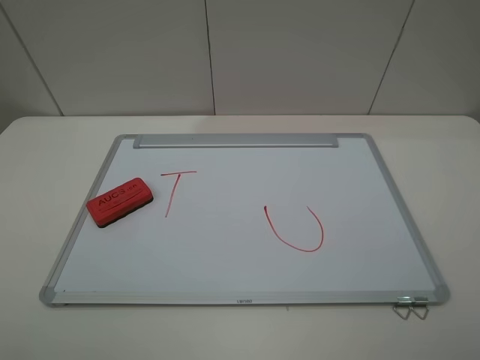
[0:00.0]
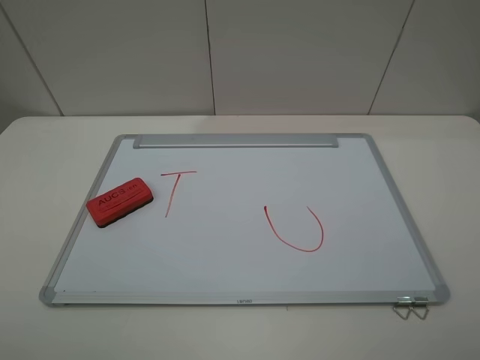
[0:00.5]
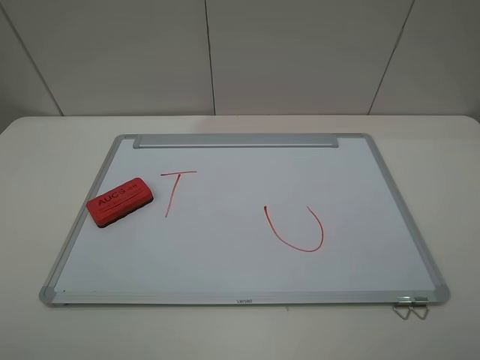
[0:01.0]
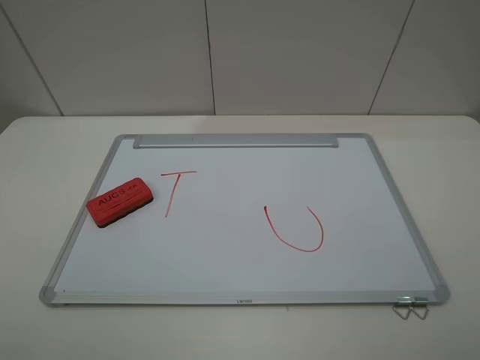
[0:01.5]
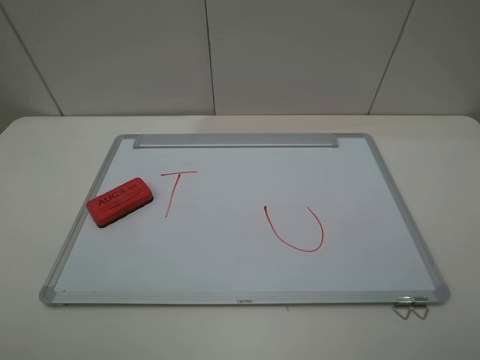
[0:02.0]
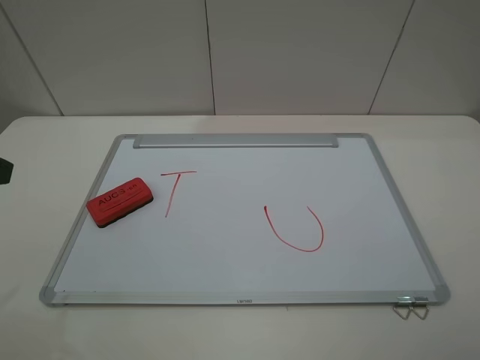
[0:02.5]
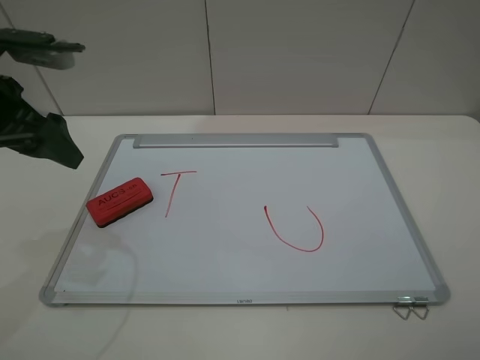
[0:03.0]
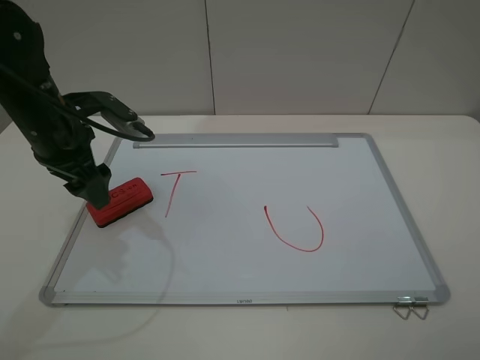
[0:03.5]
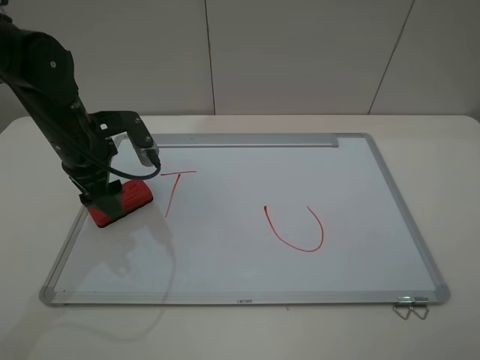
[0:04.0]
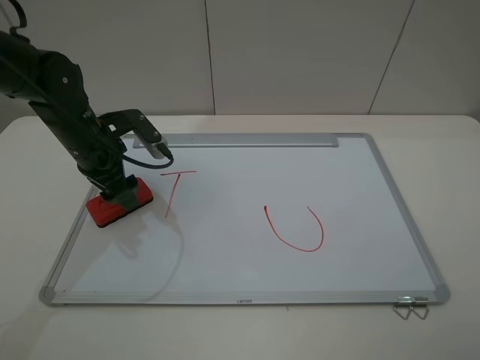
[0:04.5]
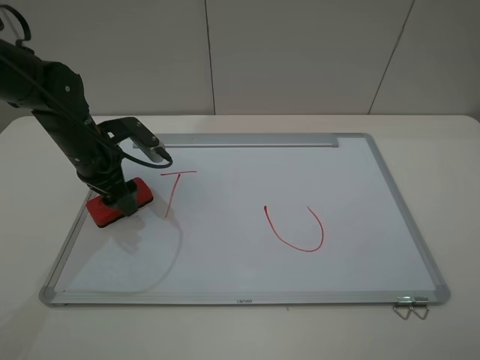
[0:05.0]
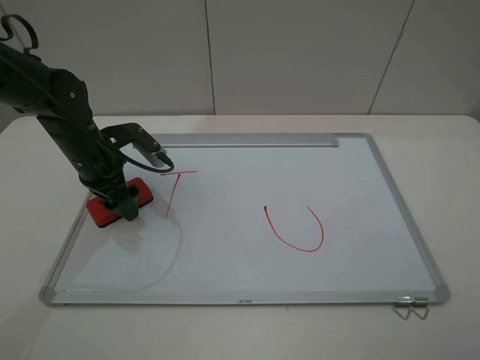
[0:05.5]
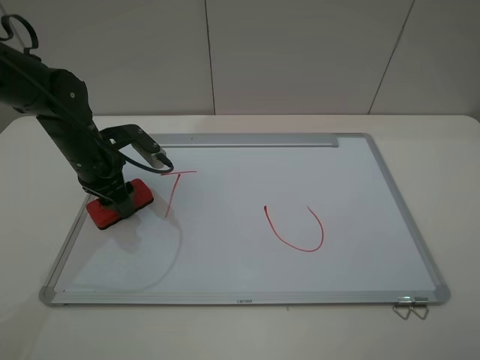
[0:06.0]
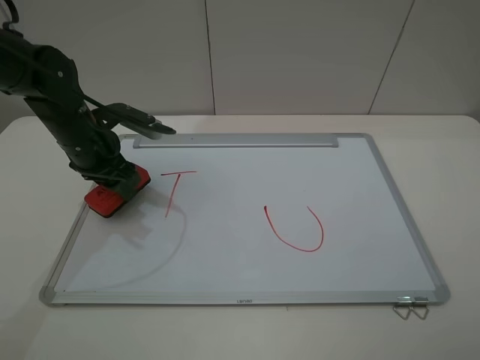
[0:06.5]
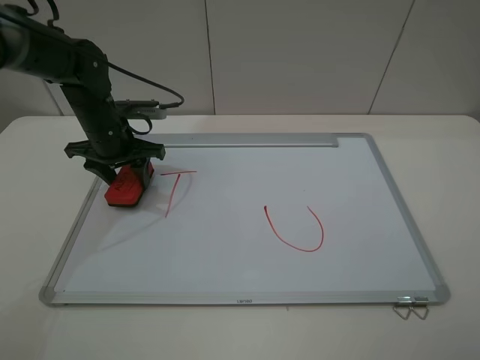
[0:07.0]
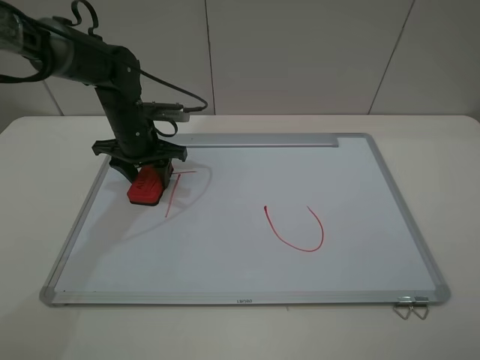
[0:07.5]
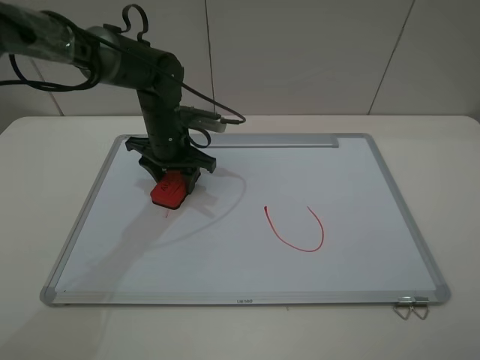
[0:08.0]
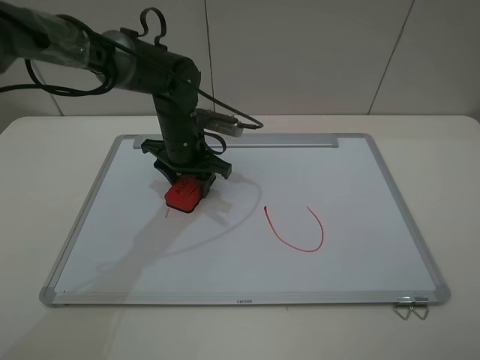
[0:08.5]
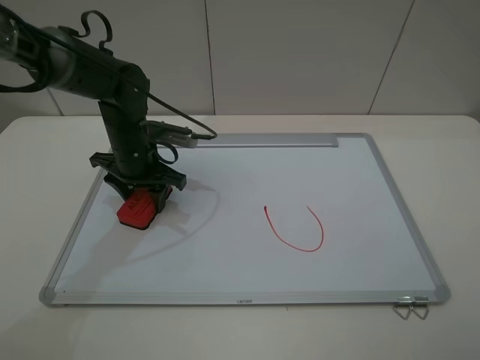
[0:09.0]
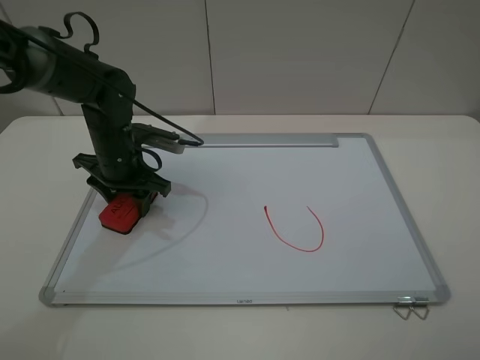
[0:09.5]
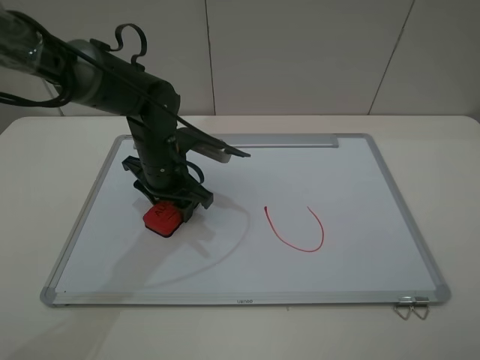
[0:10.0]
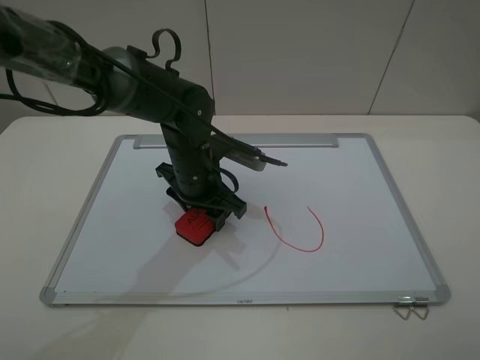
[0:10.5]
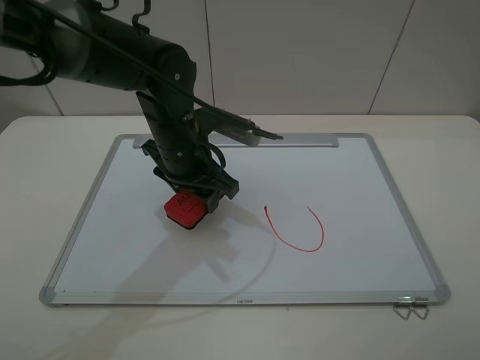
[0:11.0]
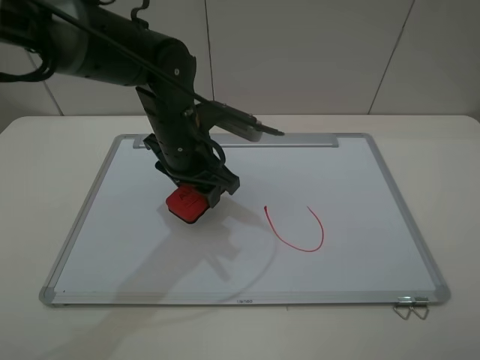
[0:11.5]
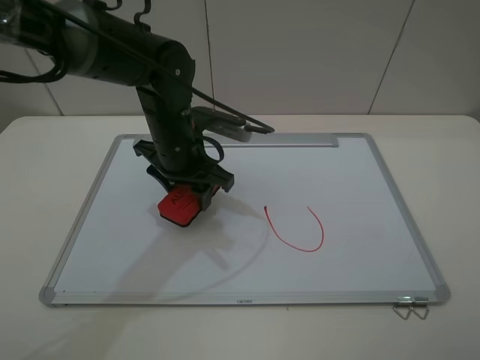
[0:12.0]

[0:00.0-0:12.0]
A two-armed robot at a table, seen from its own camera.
Step, 0:00.0 to 0:05.5: Grasp the eraser with the left gripper.
Step, 0:06.0 to 0:11.0: Grasp the eraser and wipe the blackboard with the left gripper.
0:00.0 to 0:02.0: The two grippers keep their place.
0:02.0 to 0:04.0: The left gripper is displaced forward and downward by about 35 cm.
0:04.0 to 0:06.0: The left gripper closes.
0:06.0 to 0:08.0: The left gripper is displaced to the right and forward by some 15 cm.
0:08.0 to 0:10.0: The left gripper shifts about 5 cm backward, and travels to the left and back again, some 5 cm each way.
0:10.0 to 0:12.0: The left gripper goes approximately 5 cm upward.

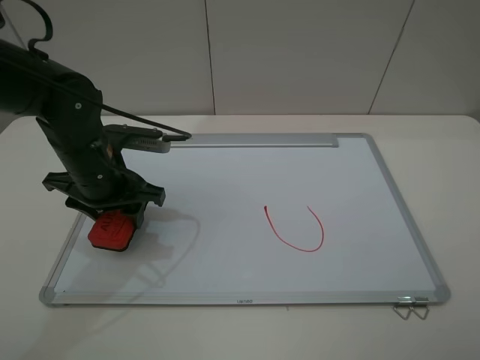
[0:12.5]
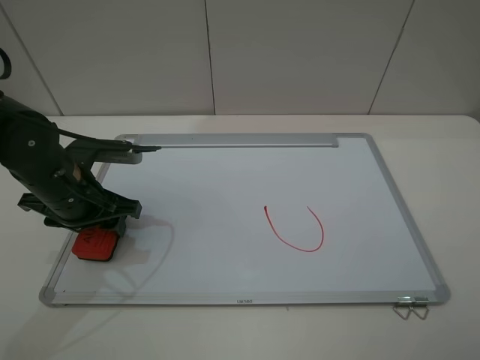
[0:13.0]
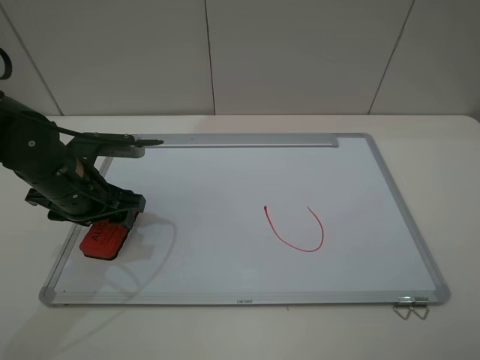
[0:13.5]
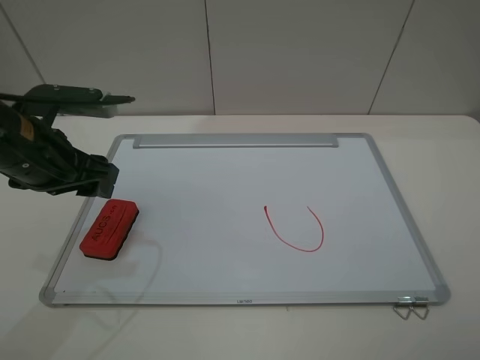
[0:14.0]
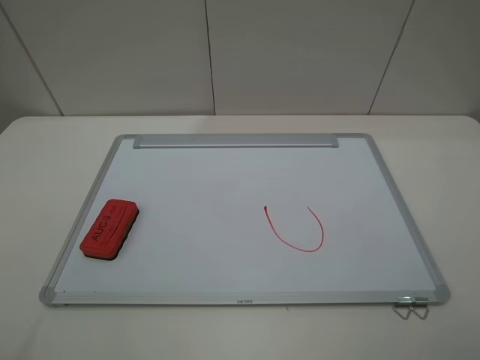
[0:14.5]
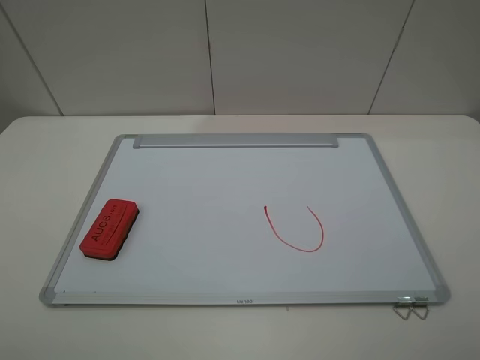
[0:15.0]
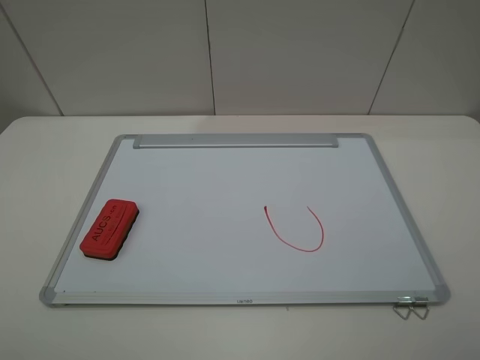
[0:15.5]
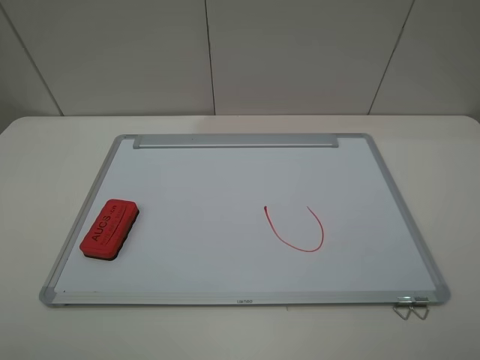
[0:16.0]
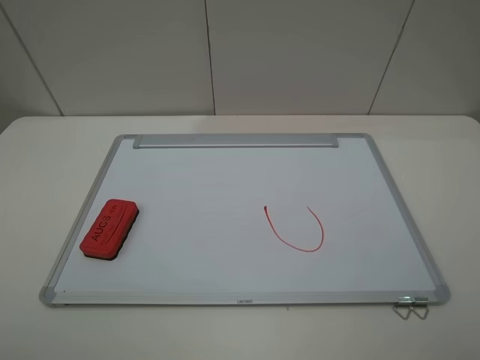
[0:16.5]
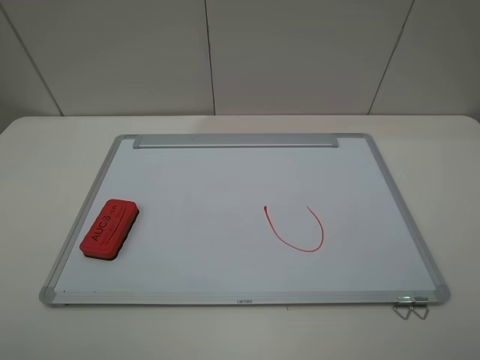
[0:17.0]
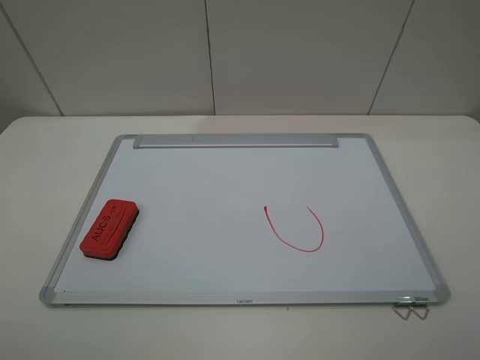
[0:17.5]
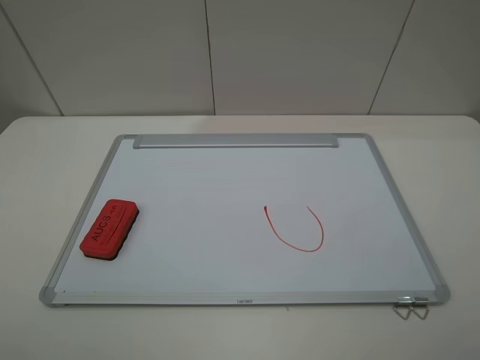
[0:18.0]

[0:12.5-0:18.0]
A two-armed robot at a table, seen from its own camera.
0:12.5 to 0:14.5: The left gripper shifts roughly 30 cm upward, backward and to the left, and opens up.

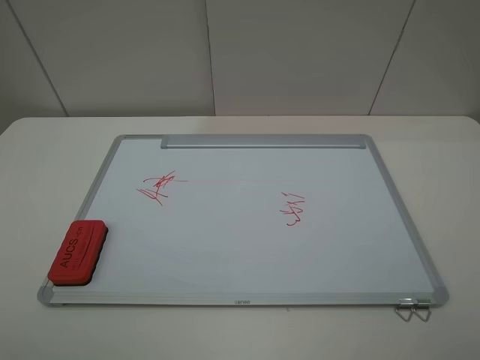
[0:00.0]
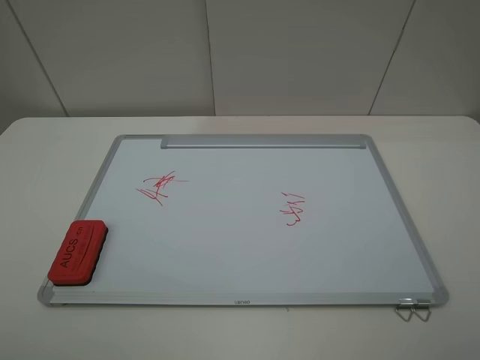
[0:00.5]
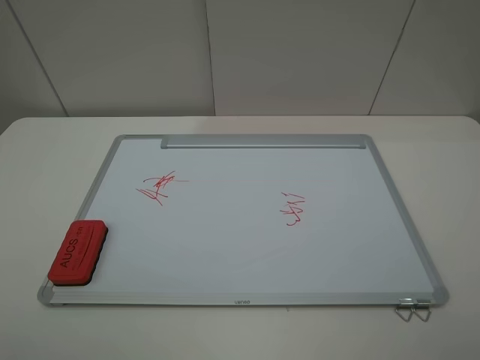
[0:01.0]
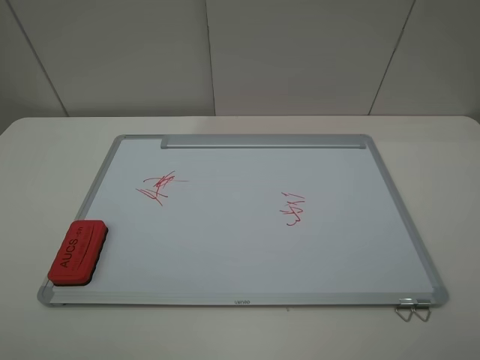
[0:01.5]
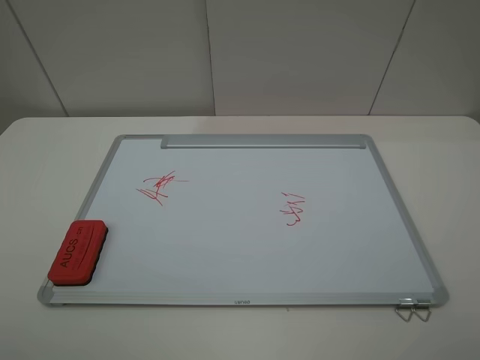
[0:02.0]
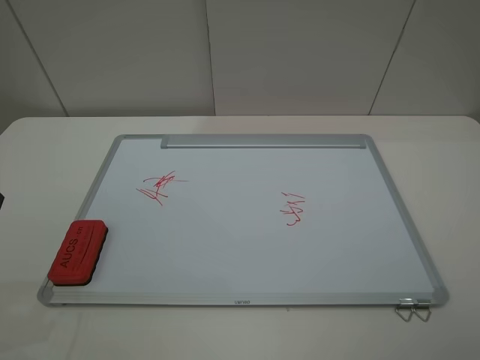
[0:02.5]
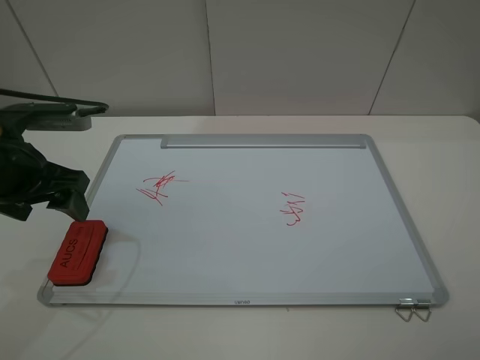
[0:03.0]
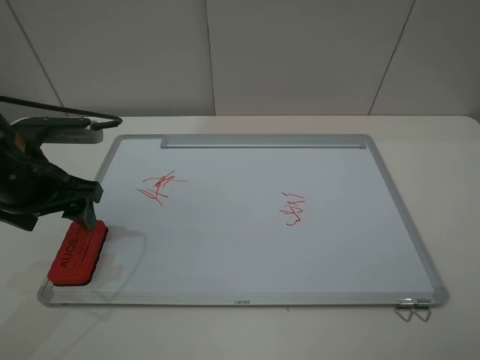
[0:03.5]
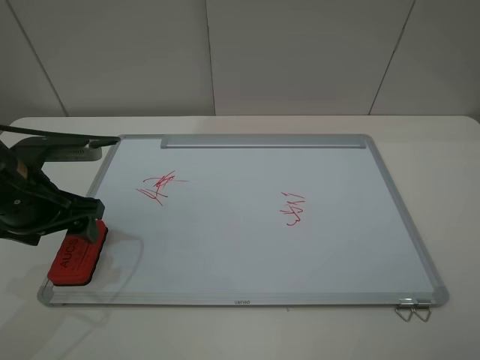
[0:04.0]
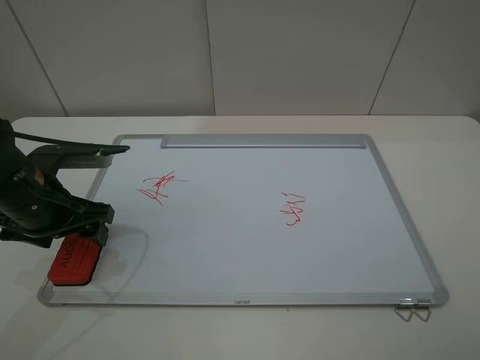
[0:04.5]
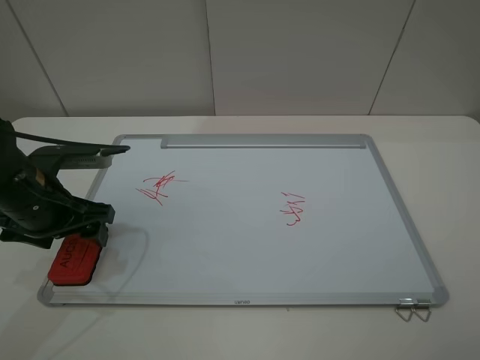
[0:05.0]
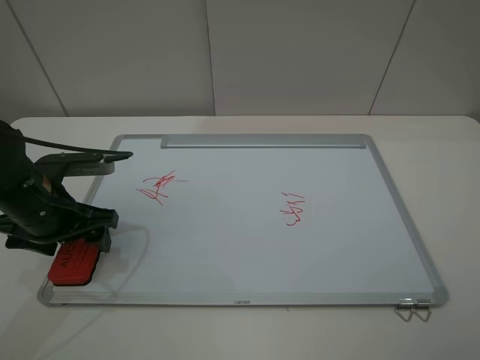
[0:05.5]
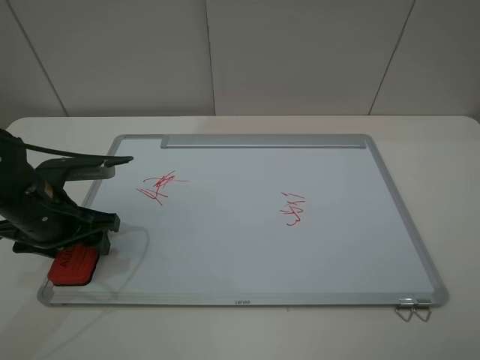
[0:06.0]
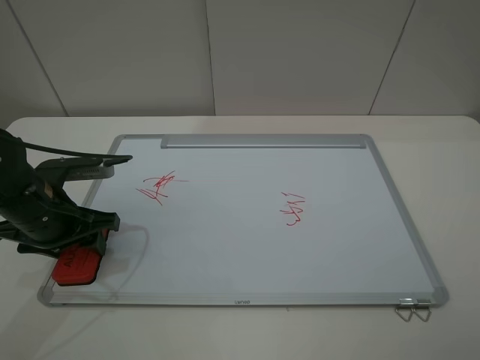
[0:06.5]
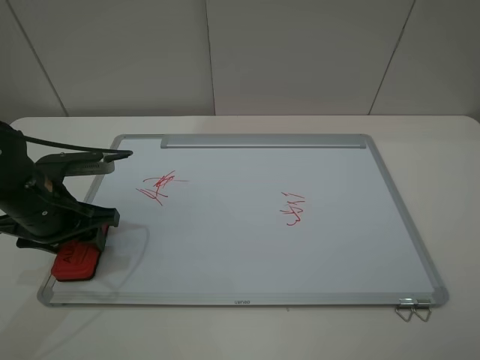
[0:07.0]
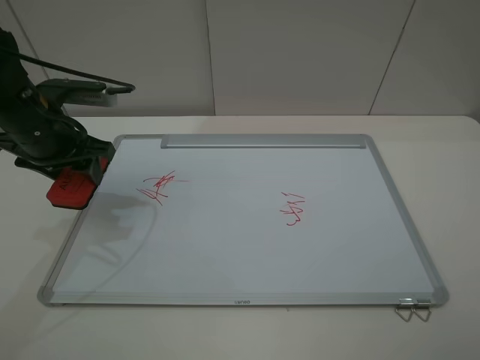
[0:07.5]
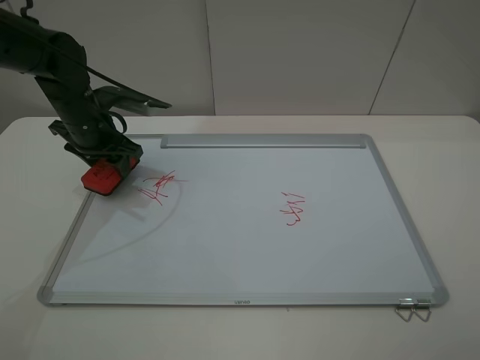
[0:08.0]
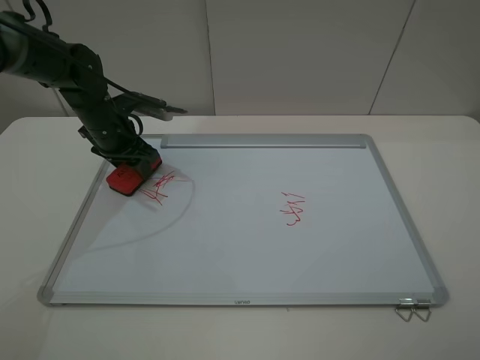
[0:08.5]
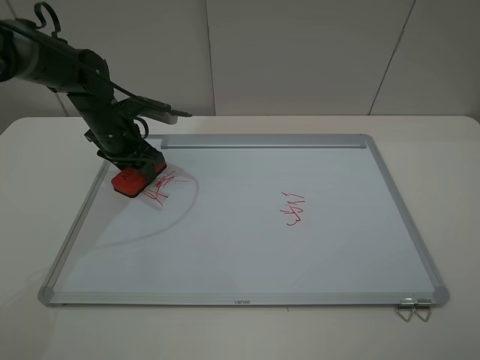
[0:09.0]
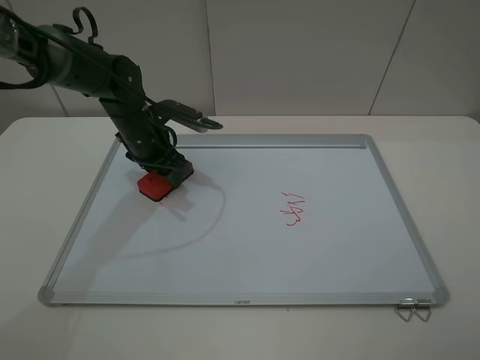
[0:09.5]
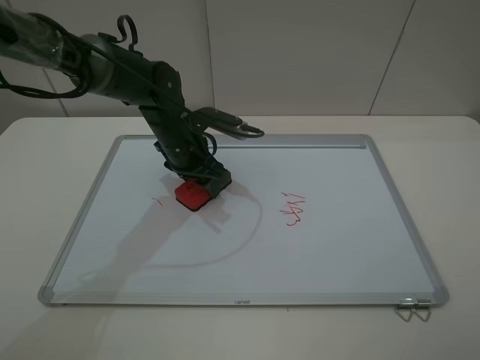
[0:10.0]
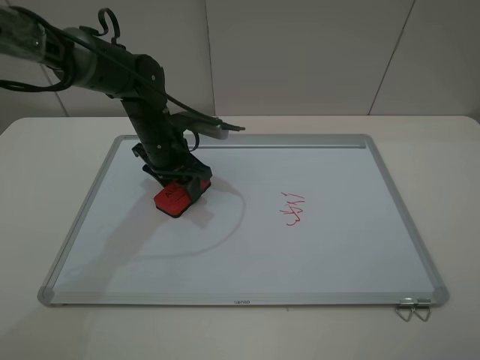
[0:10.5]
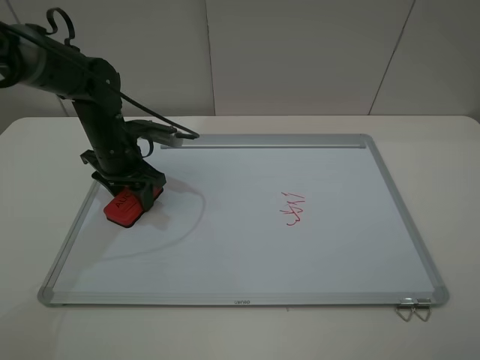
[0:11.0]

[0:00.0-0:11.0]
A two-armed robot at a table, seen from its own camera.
Step, 0:00.0 to 0:06.0: Grasp the eraser with the left gripper.
0:02.0 to 0:03.5: The left gripper moves forward and downward, roughly 25 cm.
0:03.5 to 0:05.5: The left gripper shifts approximately 5 cm downward.
0:05.5 to 0:07.5: The left gripper shifts about 10 cm forward and upward, and closes up.
0:07.5 to 0:09.0: The left gripper shifts some 15 cm forward and downward.
0:09.0 to 0:11.0: The left gripper moves about 10 cm to the right and comes back.
